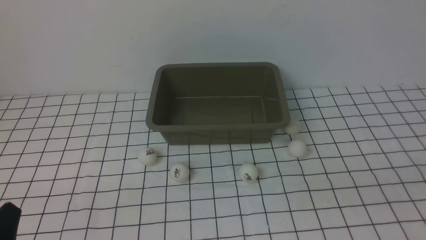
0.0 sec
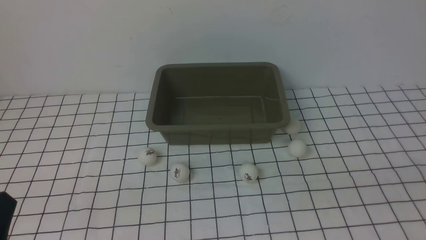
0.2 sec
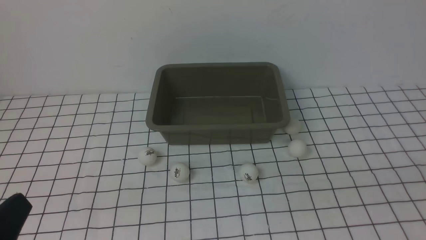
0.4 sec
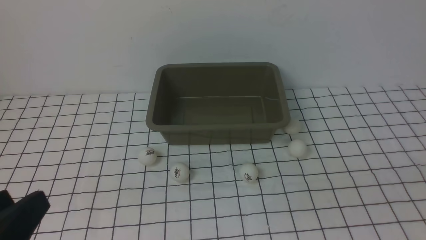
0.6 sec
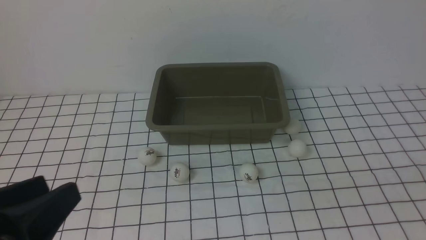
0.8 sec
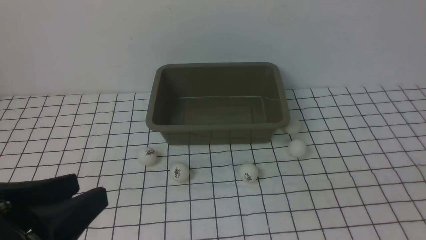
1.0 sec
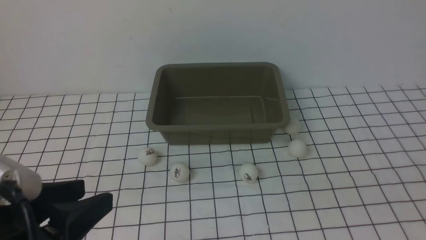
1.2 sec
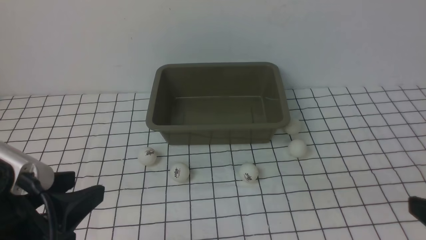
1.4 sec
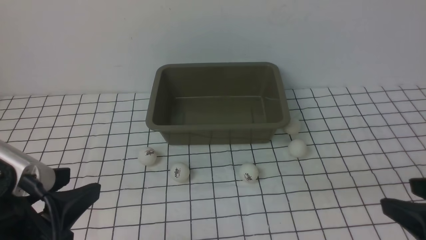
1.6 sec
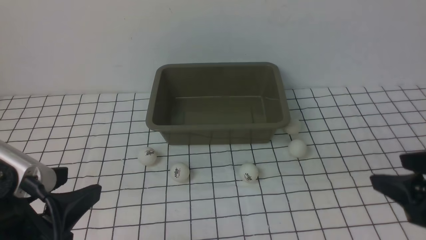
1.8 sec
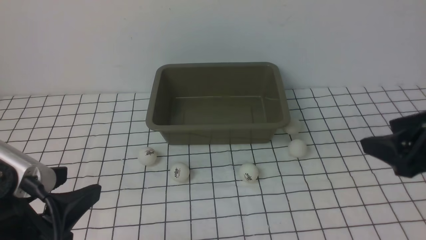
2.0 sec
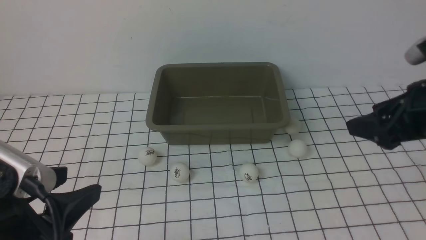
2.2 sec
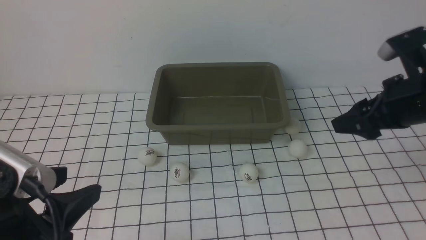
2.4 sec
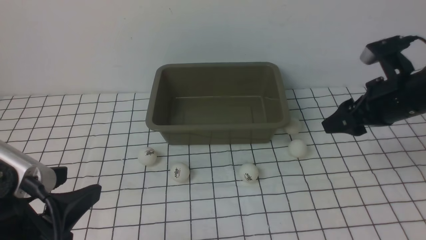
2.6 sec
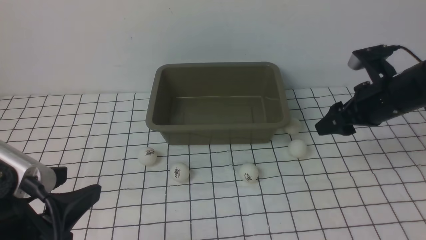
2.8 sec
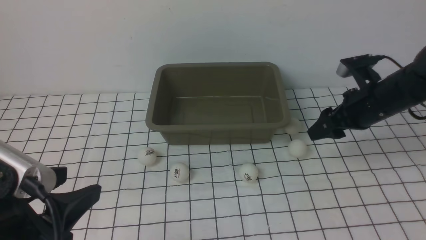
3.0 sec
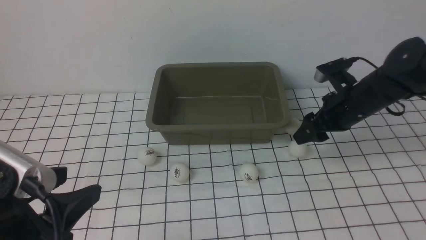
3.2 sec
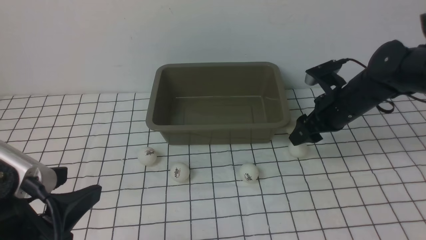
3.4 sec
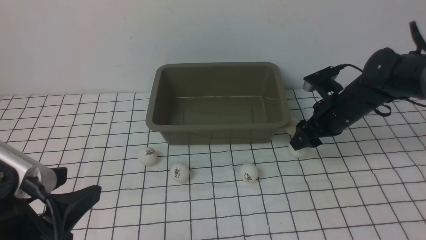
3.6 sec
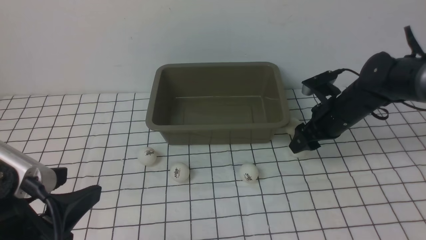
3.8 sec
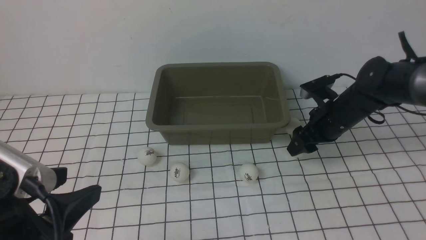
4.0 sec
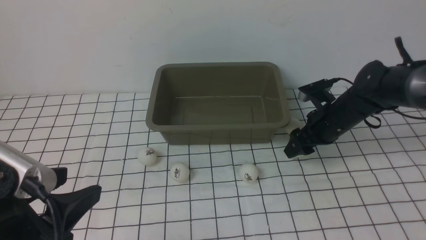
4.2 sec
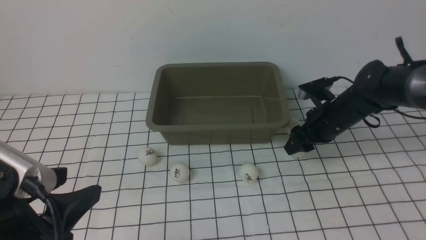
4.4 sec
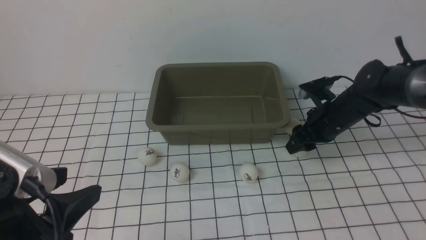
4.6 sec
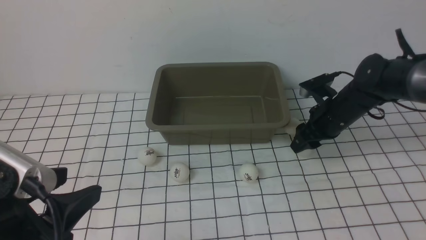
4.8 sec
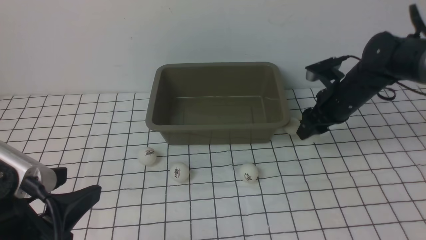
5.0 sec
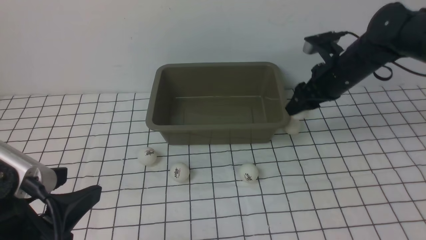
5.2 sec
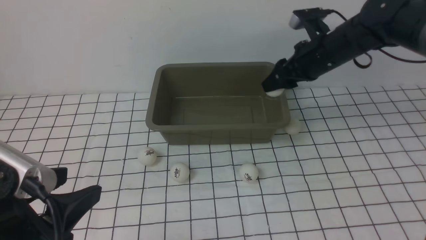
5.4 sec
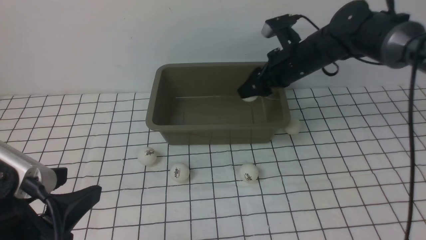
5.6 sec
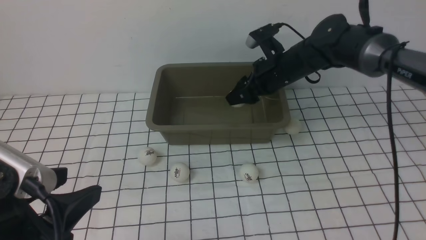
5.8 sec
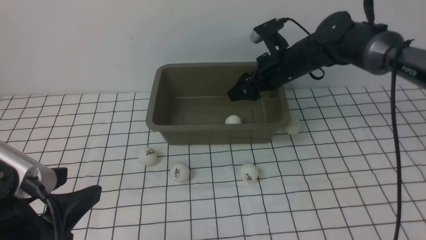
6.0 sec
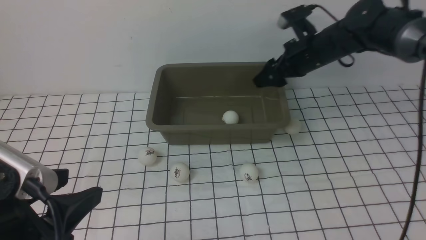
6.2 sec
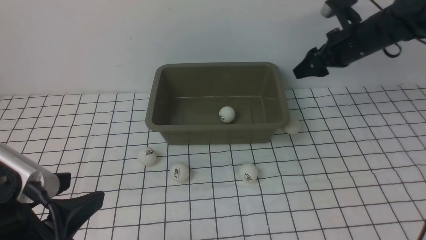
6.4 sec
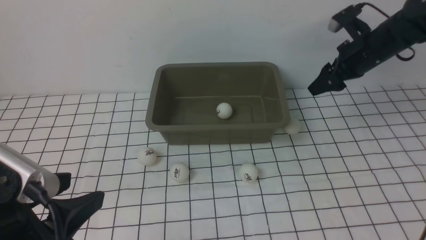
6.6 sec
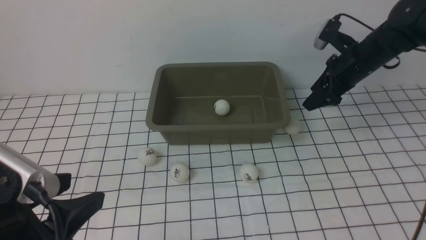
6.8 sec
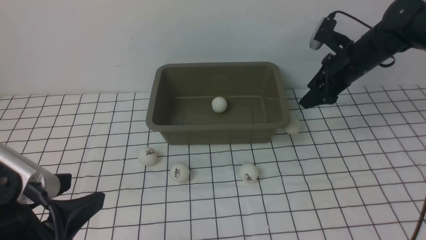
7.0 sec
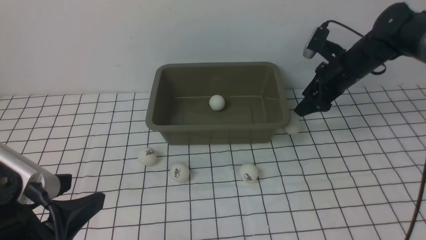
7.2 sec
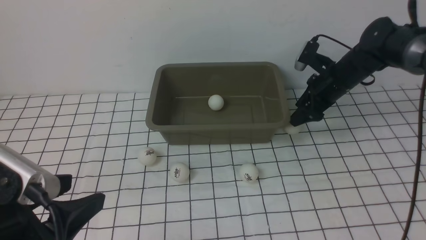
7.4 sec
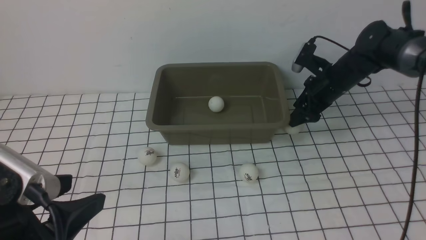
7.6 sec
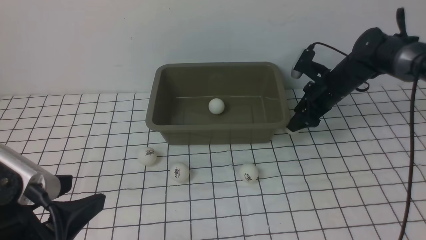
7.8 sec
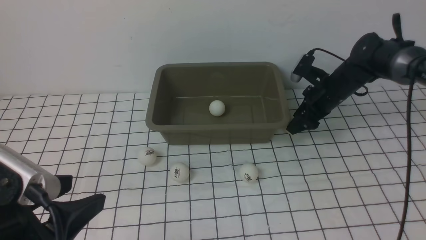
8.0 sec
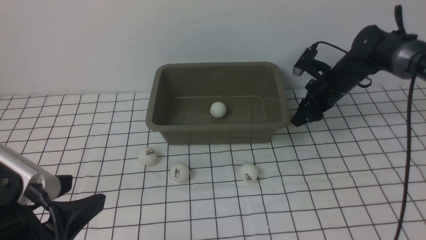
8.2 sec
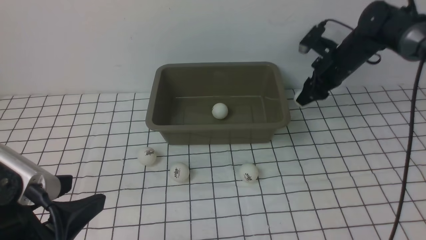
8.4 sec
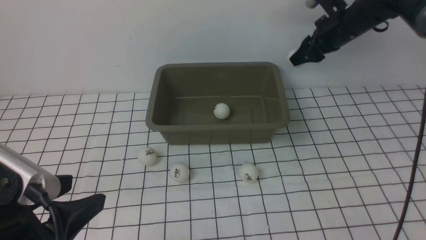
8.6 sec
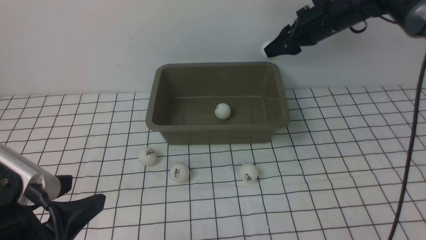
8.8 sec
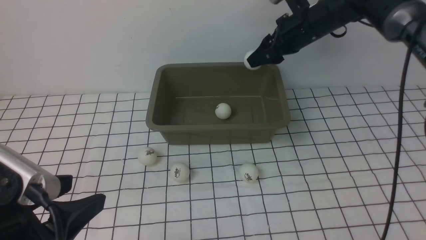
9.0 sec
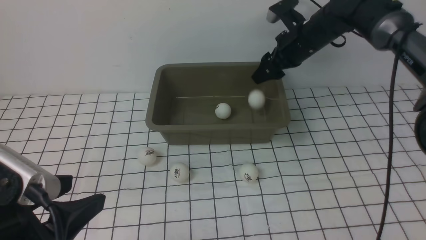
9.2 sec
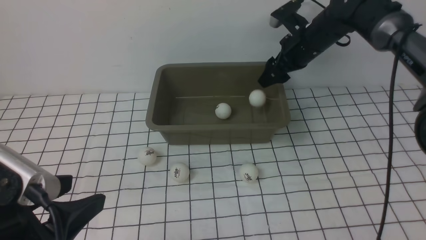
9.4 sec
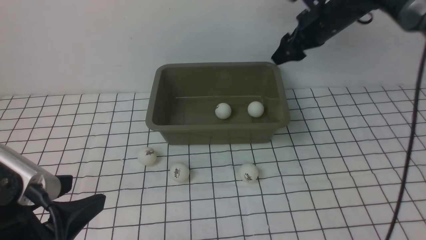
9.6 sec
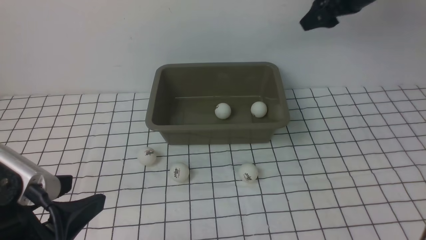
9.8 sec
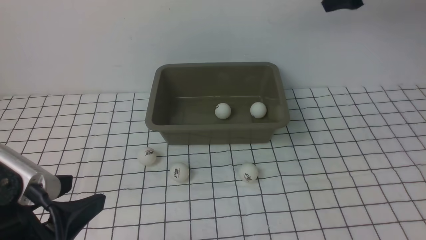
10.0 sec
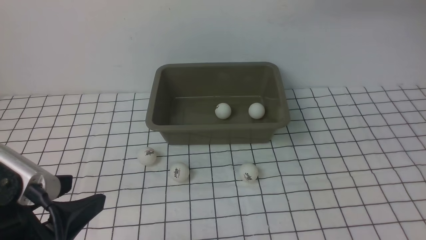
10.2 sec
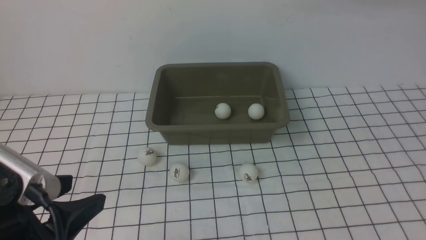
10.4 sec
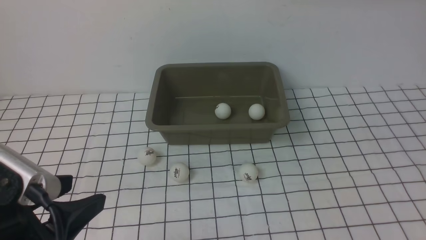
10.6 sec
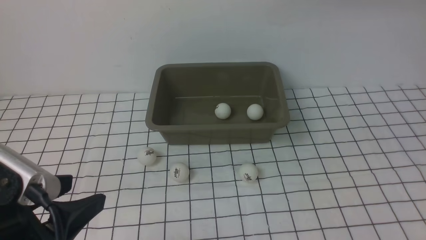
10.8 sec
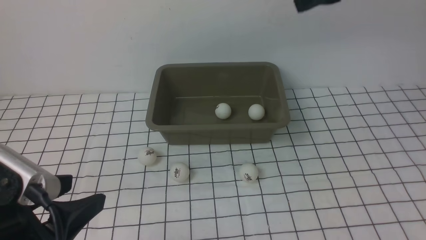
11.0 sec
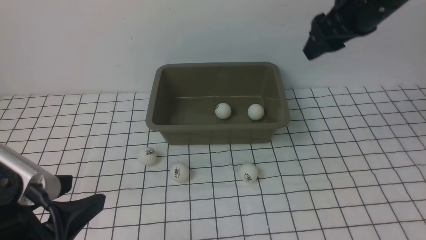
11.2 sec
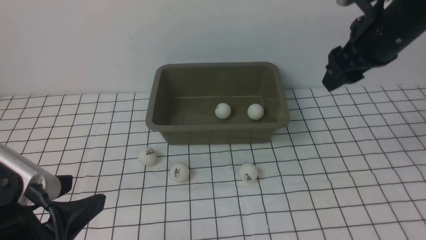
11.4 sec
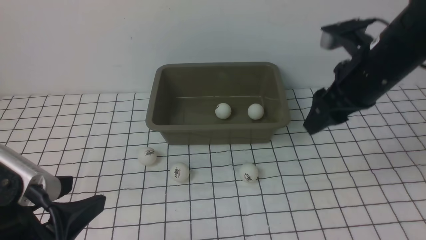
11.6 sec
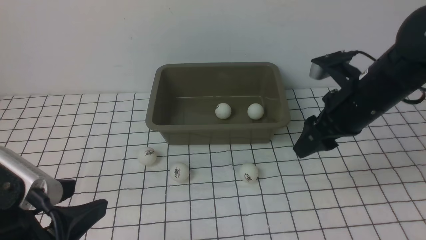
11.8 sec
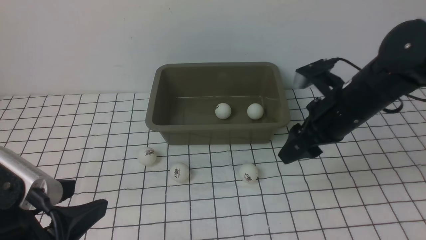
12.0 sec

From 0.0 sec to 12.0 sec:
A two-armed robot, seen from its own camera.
Step, from 0.0 sec to 5.0 sec: use the right arm to clamp the table tennis ball closest to it.
Step, from 5.2 sec to 6.0 sec: use the right arm to put the table tennis ball into the box.
Step, from 6.2 sec to 8.2 sec: use the right arm to clamp the table tennis ball closest to it.
Step, from 8.6 sec to 9.4 sec: use the right arm to put the table tennis ball into the box.
From 0.0 sec to 1.6 sec: The right gripper heads forward, covering roughly 10 cm, and opens; the left gripper shifts about 10 cm upward and forward.
From 1.6 sec to 3.0 sec: The right gripper goes about 25 cm forward, and opens.
From 3.0 sec to 4.4 sec: The right gripper travels downward by about 10 cm, and closes.
From 4.4 sec to 6.0 sec: The right gripper is displaced upward, to the left and forward by about 10 cm, and opens.
From 6.0 sec to 7.6 sec: The right gripper is displaced to the right and downward by some 10 cm.
From 7.6 sec to 9.0 sec: The right gripper heads upward and to the left, covering approximately 10 cm, and closes its fingers.
From 9.0 sec to 10.4 sec: The right gripper heads upward, to the right and backward, covering about 25 cm, and opens up.
From 10.4 sec to 12.0 sec: The right gripper heads downward, to the left and backward, covering some 25 cm.

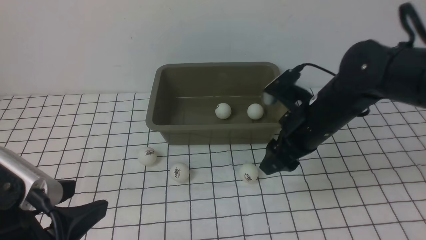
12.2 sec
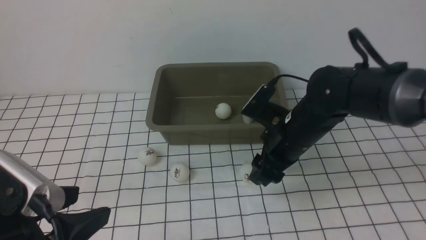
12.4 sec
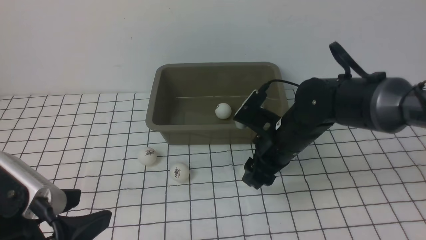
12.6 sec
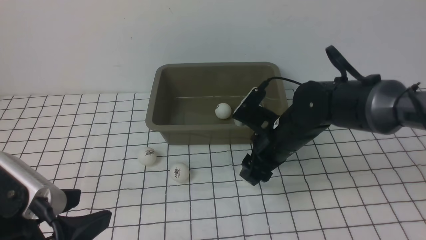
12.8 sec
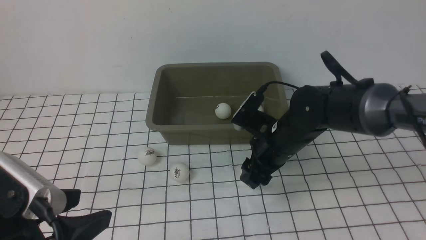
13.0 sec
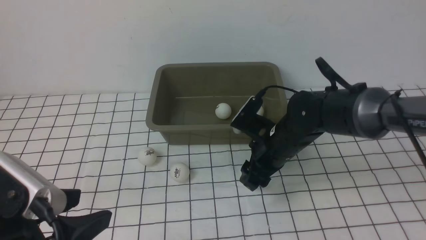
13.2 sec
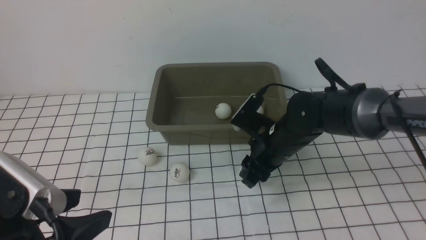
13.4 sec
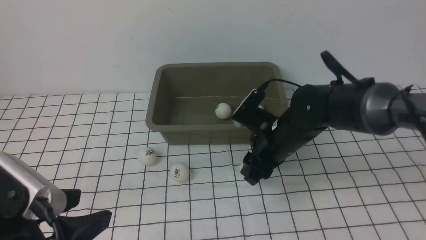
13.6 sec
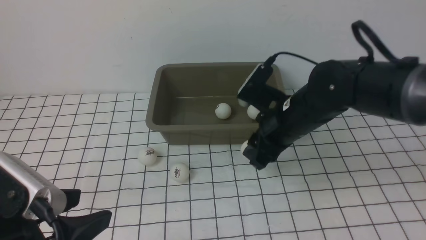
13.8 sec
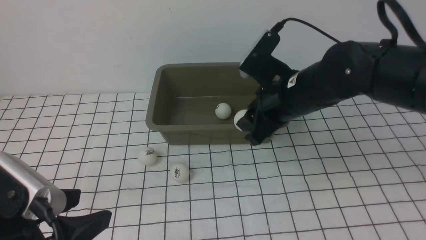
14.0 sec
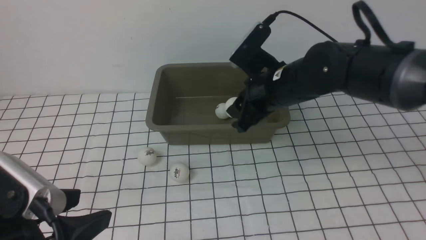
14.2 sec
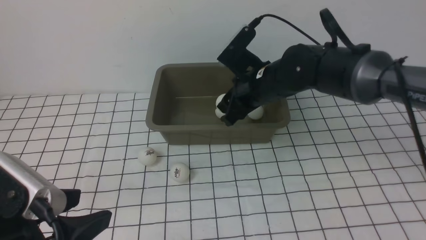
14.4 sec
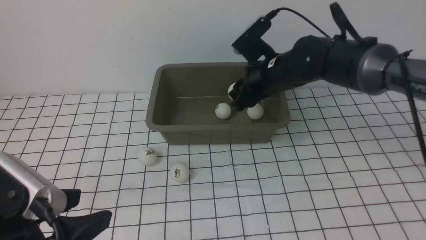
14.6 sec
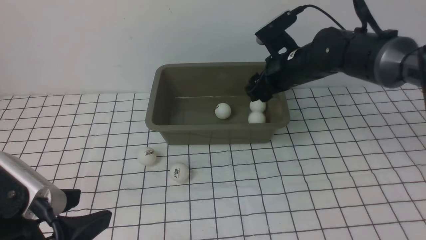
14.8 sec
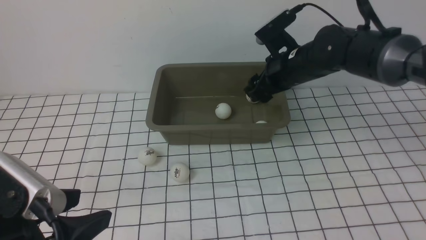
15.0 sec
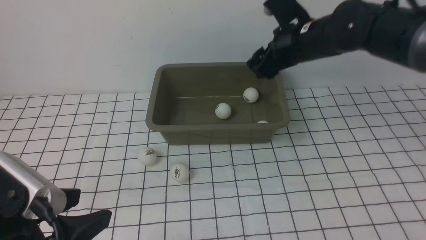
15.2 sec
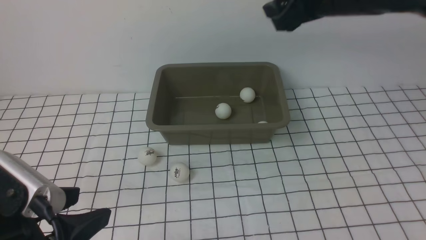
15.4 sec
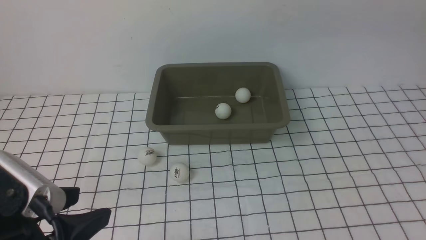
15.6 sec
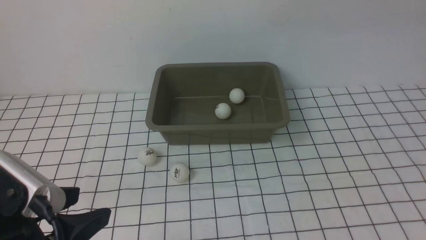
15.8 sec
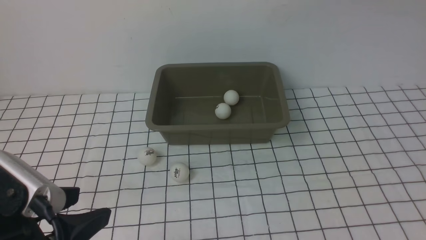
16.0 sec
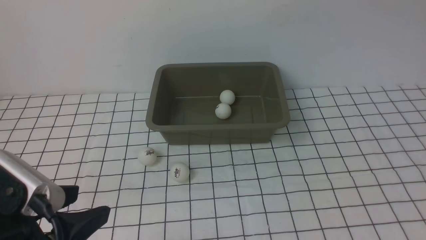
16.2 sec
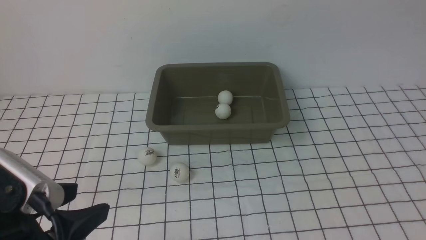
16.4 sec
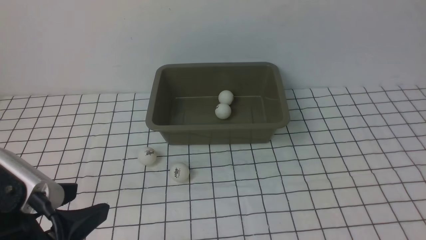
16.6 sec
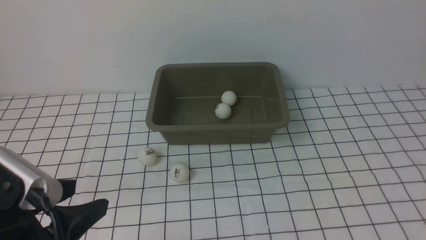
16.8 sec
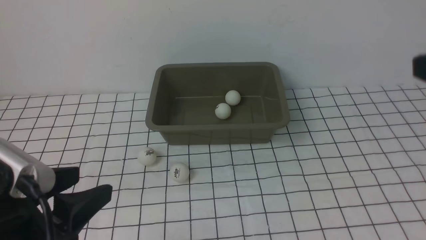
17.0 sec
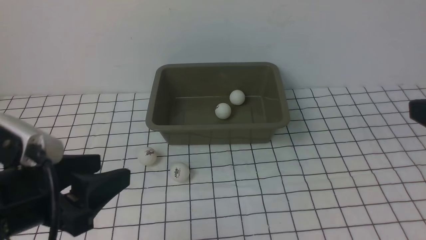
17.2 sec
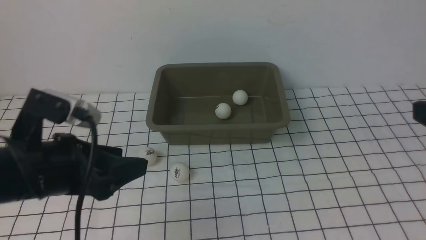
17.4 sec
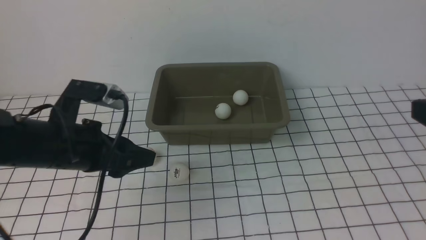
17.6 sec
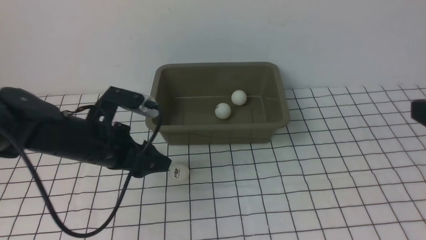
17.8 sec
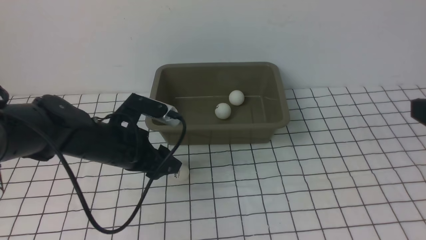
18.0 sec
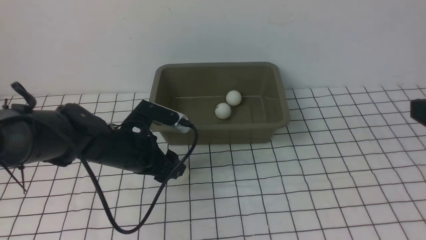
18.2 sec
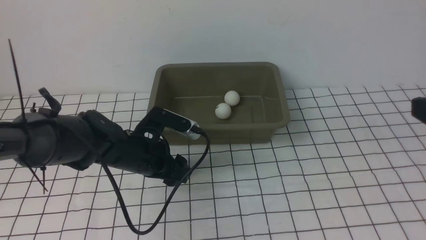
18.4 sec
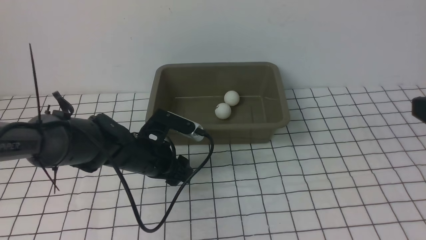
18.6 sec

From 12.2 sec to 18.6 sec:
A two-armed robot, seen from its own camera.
Step, from 14.0 sec to 15.0 sec: use the right arm to put the table tennis ball into the box.
From 12.2 sec to 13.8 sec: The right gripper closes.
From 13.8 sec to 15.4 sec: The right gripper goes some 20 cm upward and to the right, and opens.
From 15.4 sec to 17.0 sec: The right gripper shifts about 25 cm backward and to the right, and closes its fingers.
From 17.0 sec to 18.6 sec: The right gripper ends up approximately 5 cm from where it was. The left gripper goes roughly 25 cm forward, downward and to the right.
